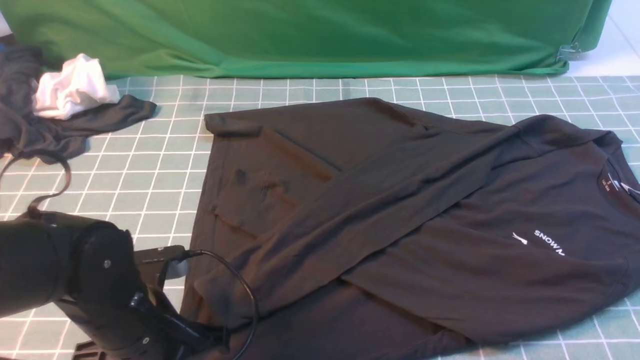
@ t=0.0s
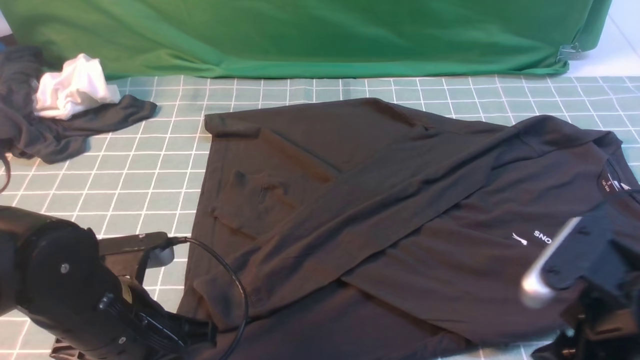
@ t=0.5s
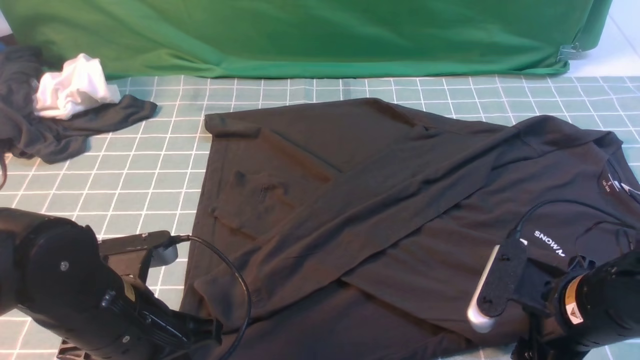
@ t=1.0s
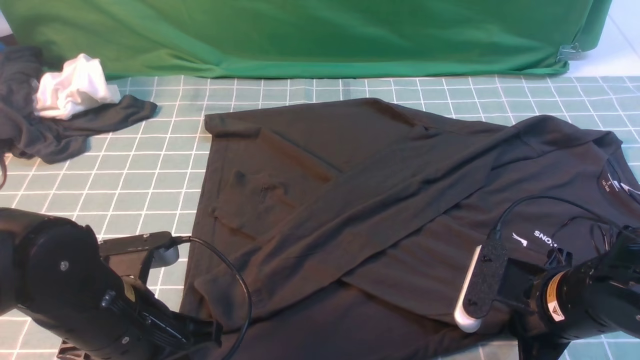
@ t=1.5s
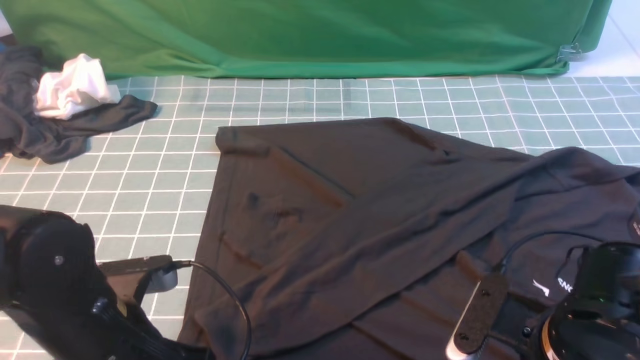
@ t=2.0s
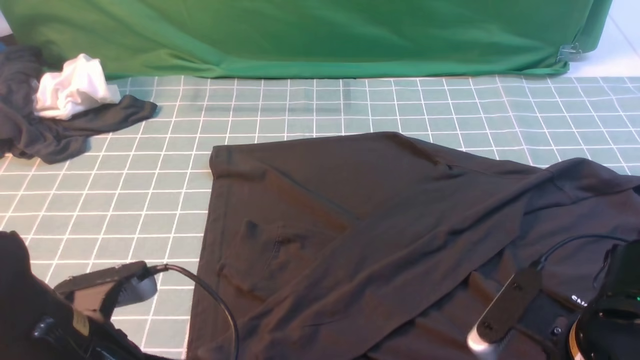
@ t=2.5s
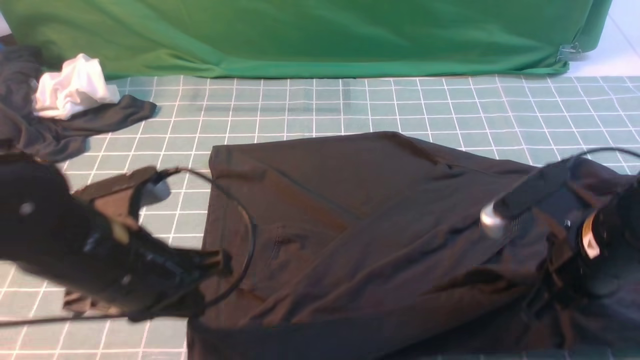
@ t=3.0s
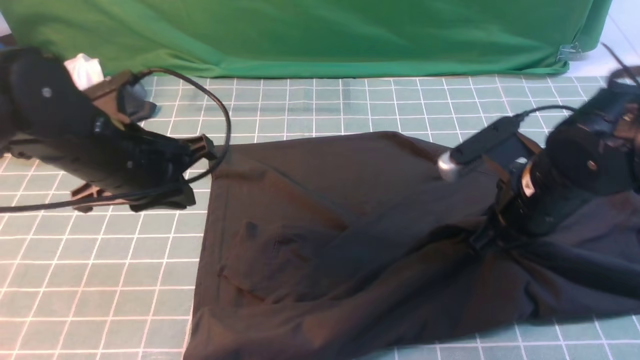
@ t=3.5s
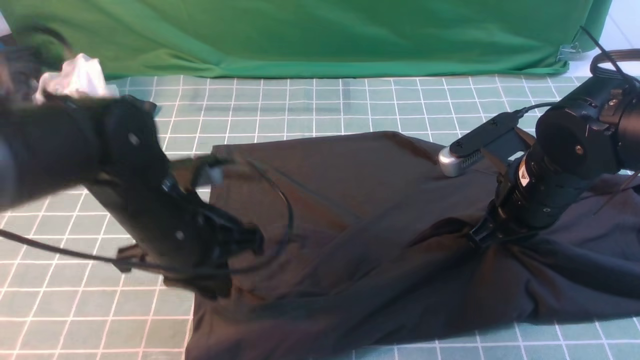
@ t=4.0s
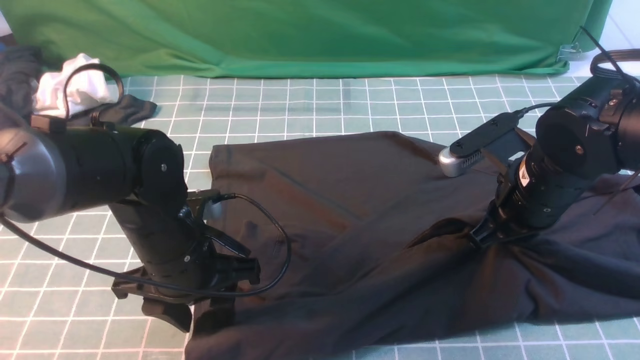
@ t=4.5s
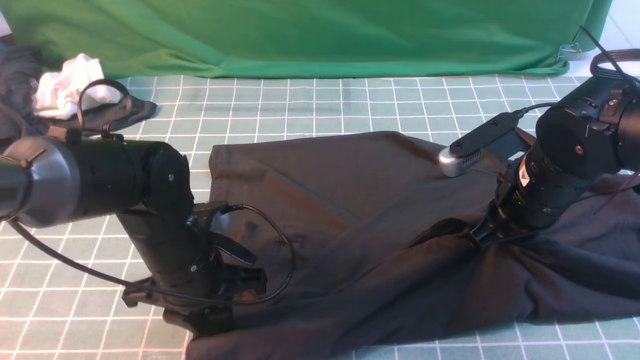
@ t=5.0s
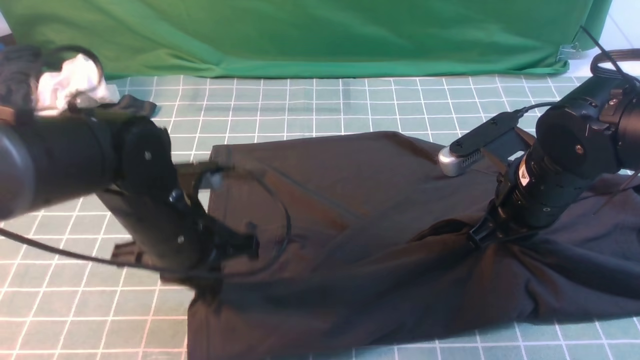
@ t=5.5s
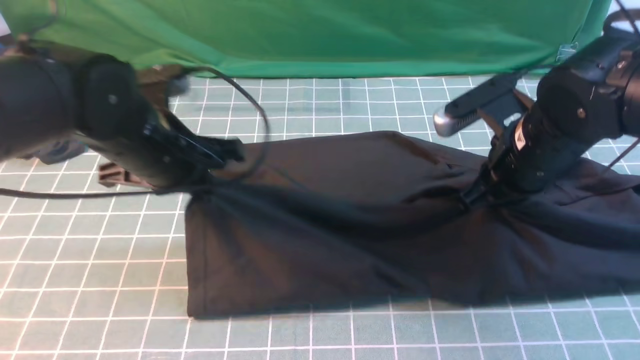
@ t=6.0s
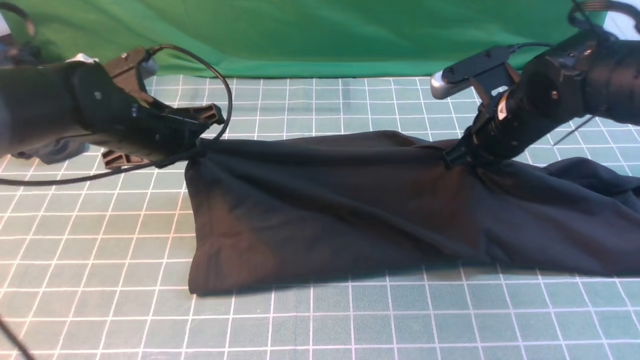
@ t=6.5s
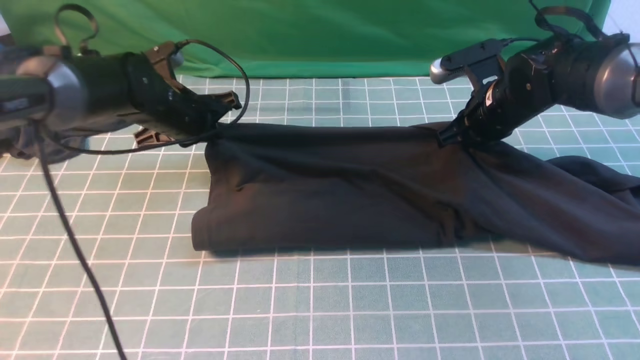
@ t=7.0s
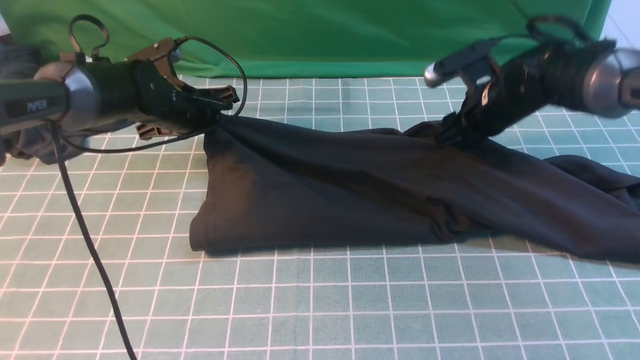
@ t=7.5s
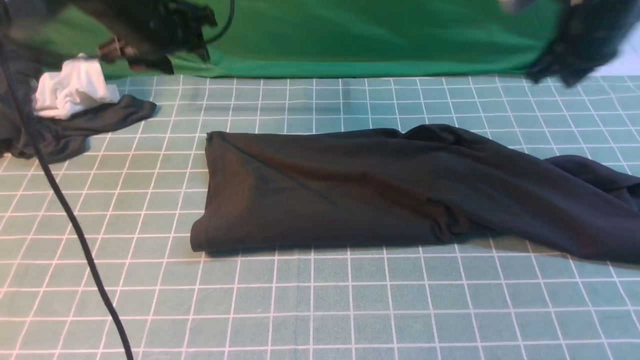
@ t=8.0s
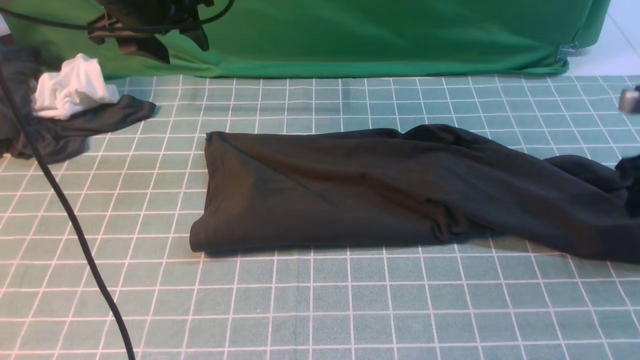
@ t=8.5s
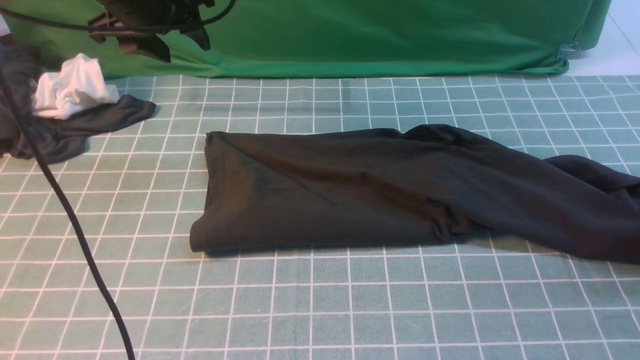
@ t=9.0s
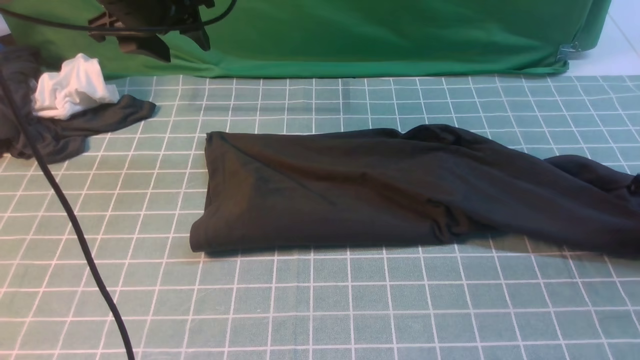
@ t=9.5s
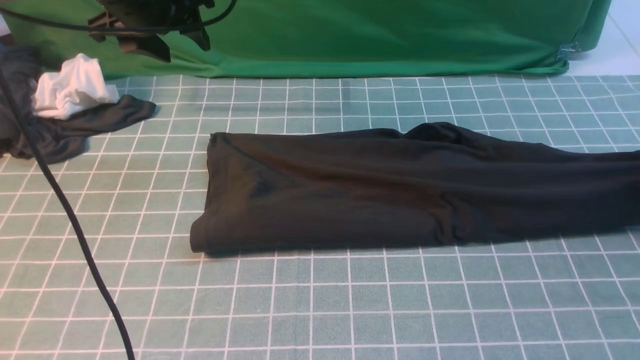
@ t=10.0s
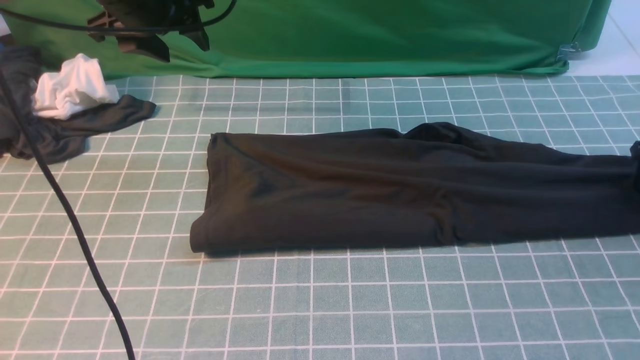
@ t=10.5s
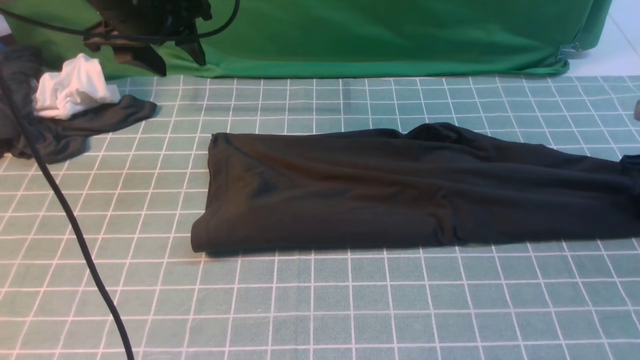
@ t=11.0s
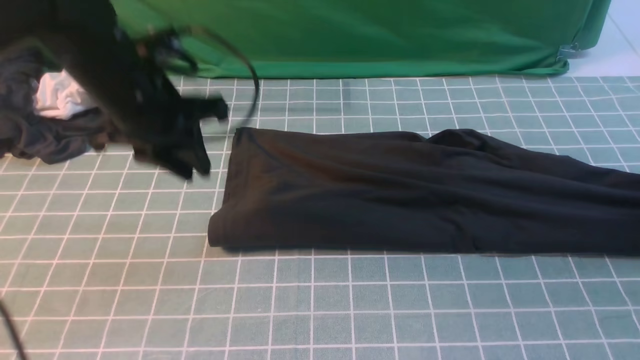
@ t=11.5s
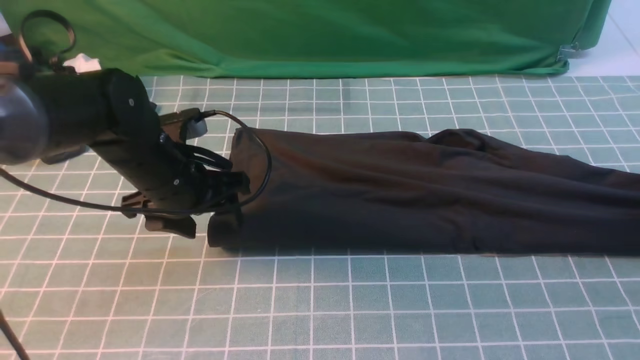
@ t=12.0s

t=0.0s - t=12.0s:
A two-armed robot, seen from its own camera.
Step, t=2.0s - t=7.5s: use both arms to drag the lower edge of the fabric forward and fold it over the upper edge.
t=0.0s - t=2.0s: The right gripper is displaced downward and to the left by roughly 15 cm, and closes.
t=2.0s - t=4.0s: Both grippers travel together forward, roughly 10 cm.
t=4.0s - t=6.0s: The left gripper travels forward by roughly 5 cm, and opens and closes again.
t=6.0s - t=8.0s: The left gripper moves forward, approximately 15 cm, and opens, while the right gripper heads forward, to the right and upward, covering roughly 15 cm, and opens, then closes again.
t=8.0s - t=10.0s: The right gripper travels to the right and downward by roughly 20 cm, and opens, then closes again.
t=10.0s - t=12.0s: The right gripper opens, then closes again; the left gripper heads downward and backward, covering roughly 20 cm, and closes, then opens again.

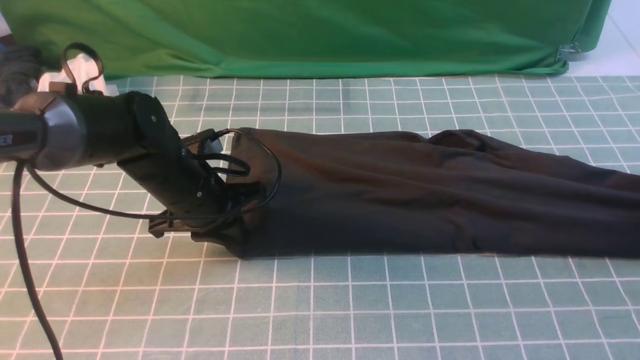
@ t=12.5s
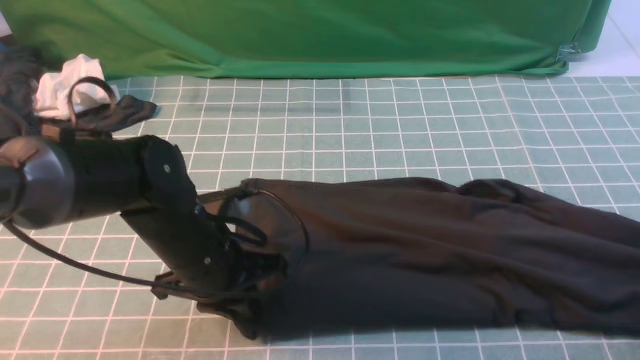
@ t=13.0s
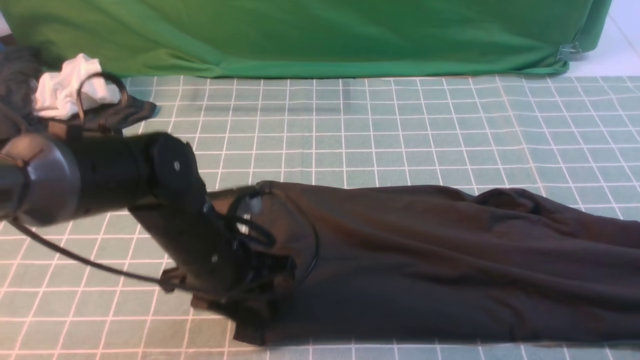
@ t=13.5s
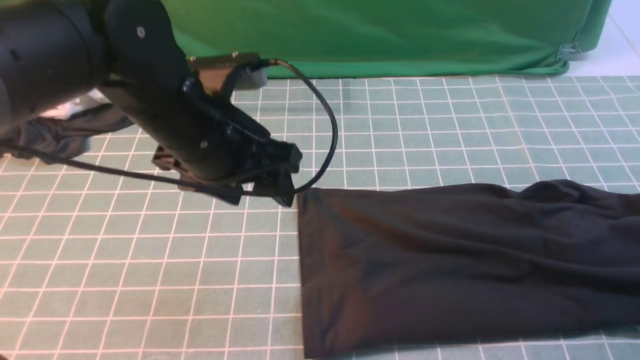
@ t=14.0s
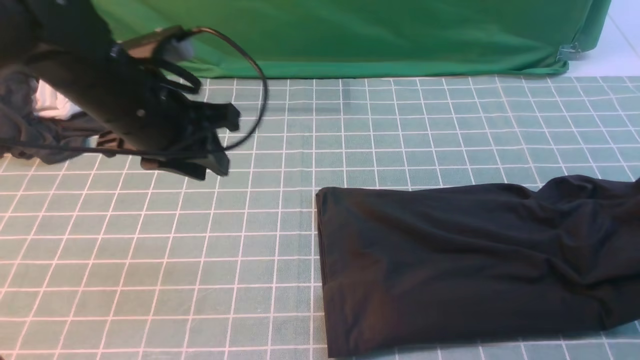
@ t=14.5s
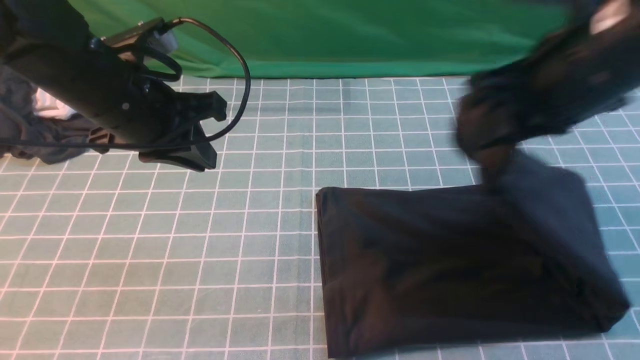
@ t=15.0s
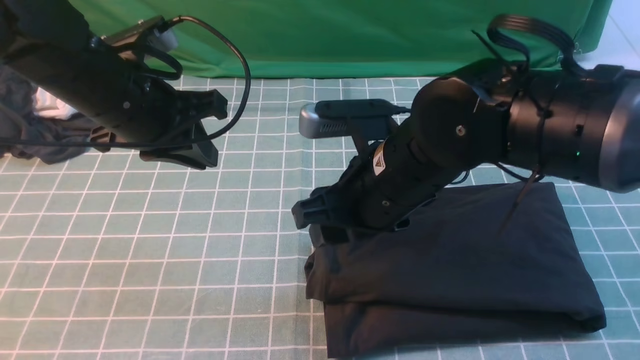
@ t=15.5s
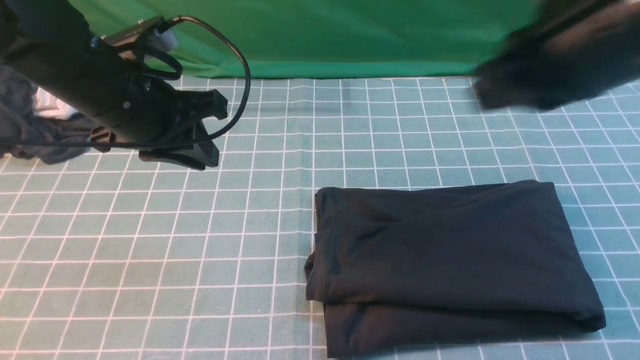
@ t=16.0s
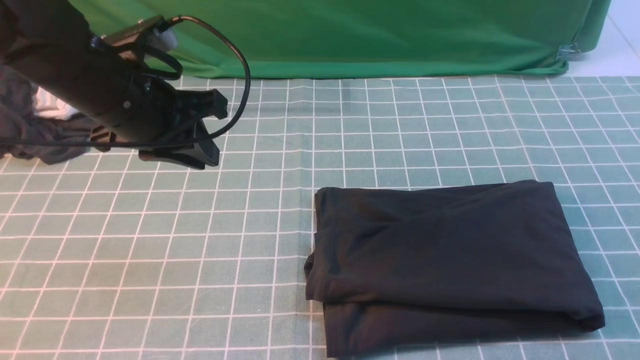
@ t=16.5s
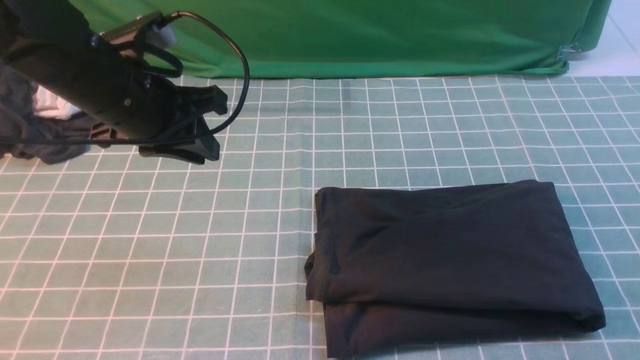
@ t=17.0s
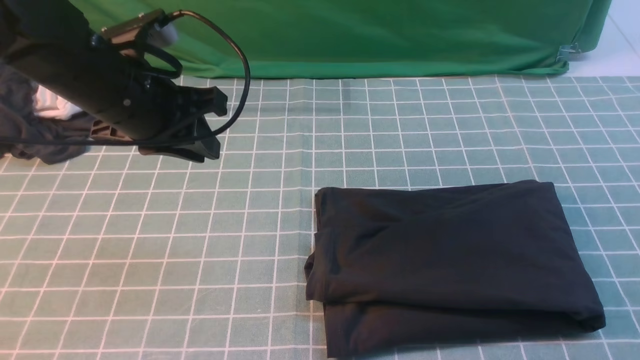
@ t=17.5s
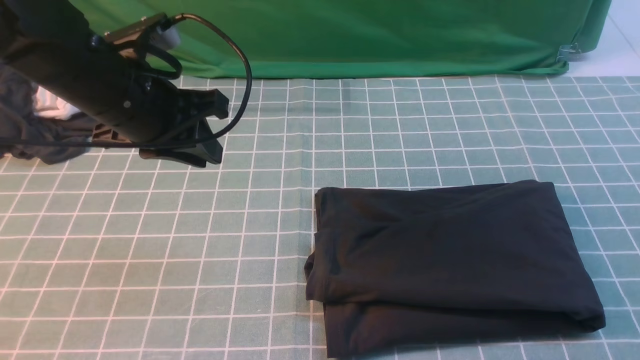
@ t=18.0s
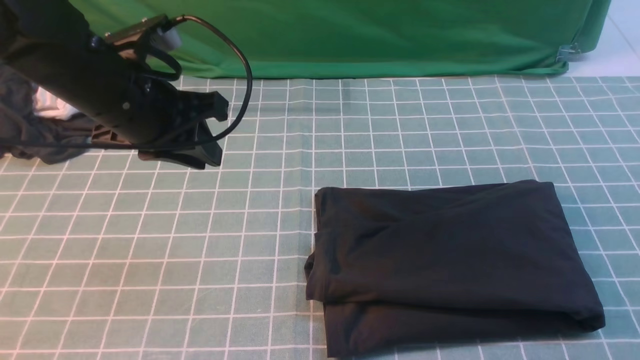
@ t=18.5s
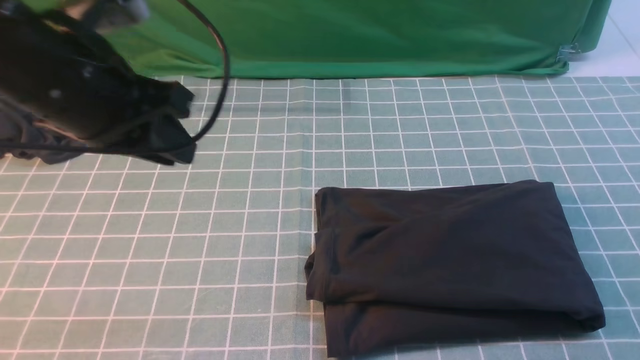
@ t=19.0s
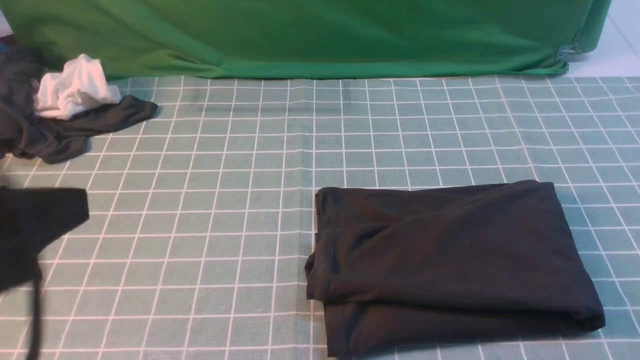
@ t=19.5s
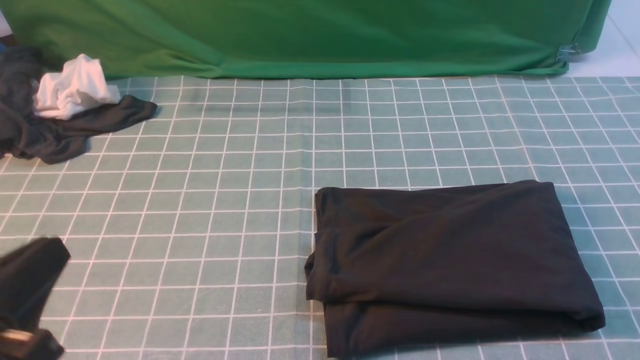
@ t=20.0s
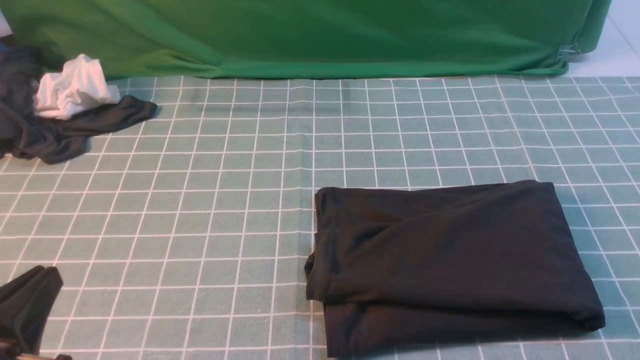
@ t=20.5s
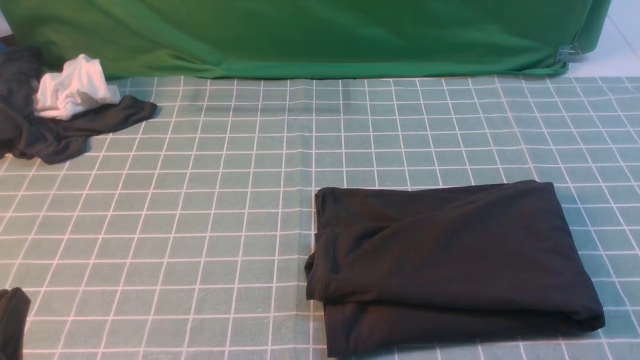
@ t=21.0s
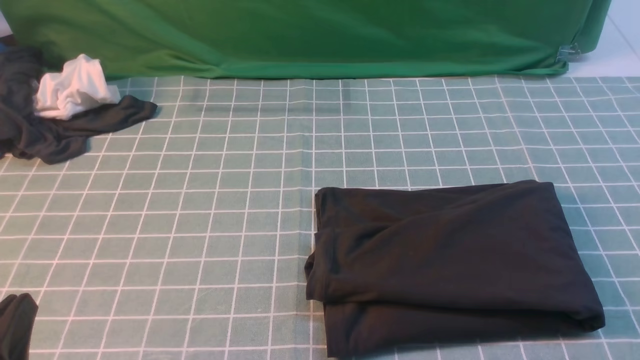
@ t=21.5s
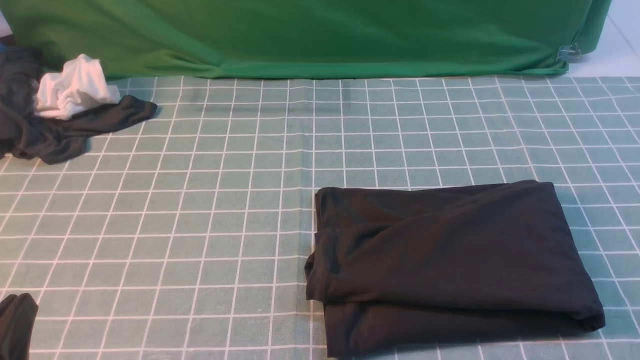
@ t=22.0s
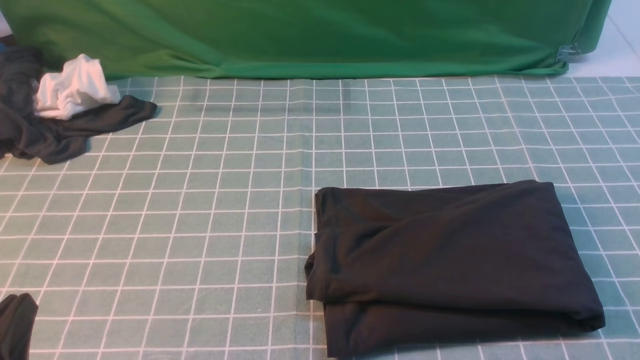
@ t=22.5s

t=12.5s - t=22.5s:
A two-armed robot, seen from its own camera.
Step, t=14.0s - t=15.5s: use the right arm to drag the right edge of the fabric to the left and folds it over the left edge.
t=12.5s - t=14.5s: The left gripper goes roughly 15 cm upward, and opens and closes again. Meanwhile the right gripper is displaced upward by approximately 20 cm.
t=14.5s - t=16.5s: The right gripper moves backward, roughly 20 cm, reaches about 35 cm to the left, then returns, and opens, then closes once more.
t=18.5s - t=20.5s: The left gripper is displaced backward by roughly 25 cm.
t=20.5s - t=22.5s: The grippers stay close to where they were, moving slightly.
